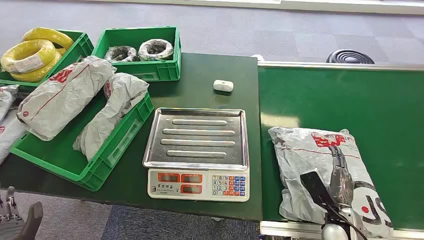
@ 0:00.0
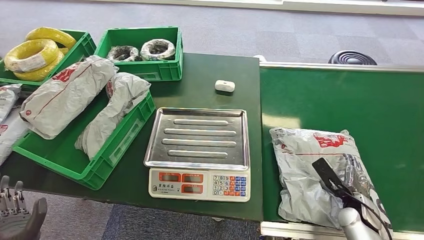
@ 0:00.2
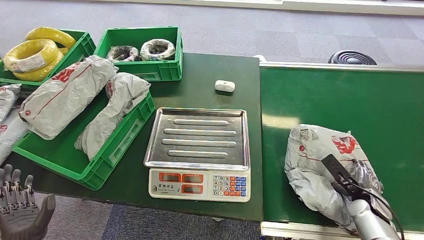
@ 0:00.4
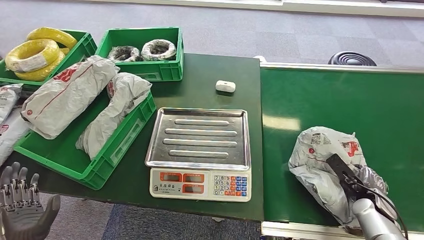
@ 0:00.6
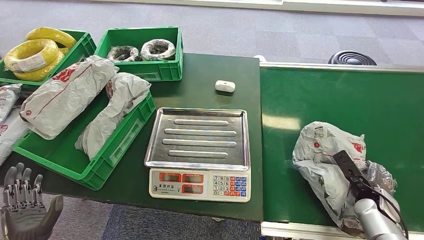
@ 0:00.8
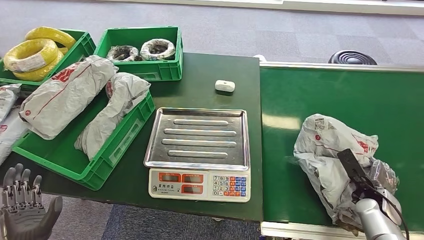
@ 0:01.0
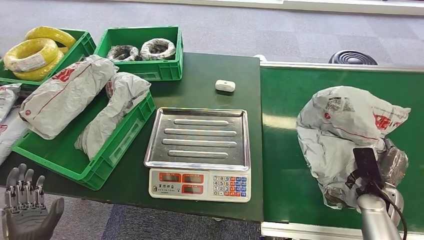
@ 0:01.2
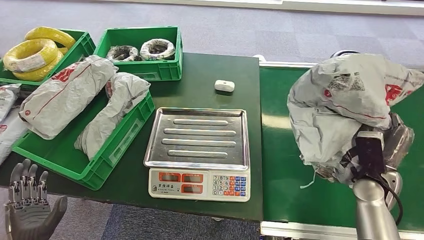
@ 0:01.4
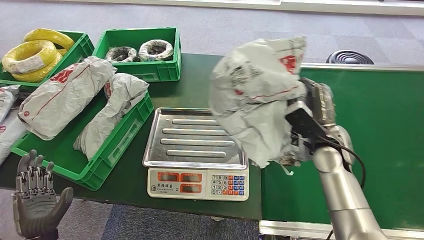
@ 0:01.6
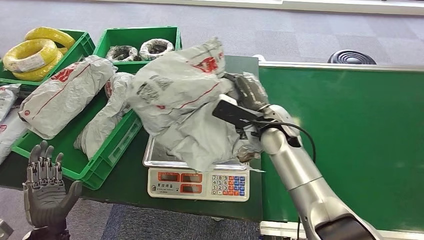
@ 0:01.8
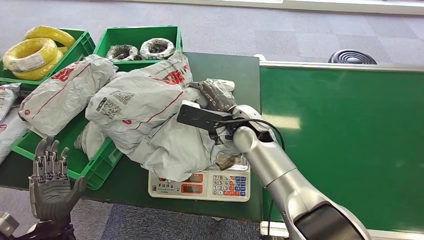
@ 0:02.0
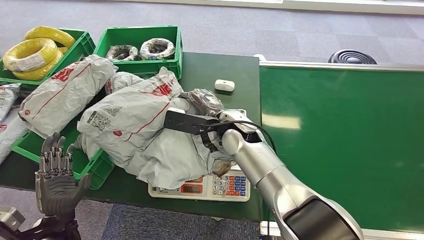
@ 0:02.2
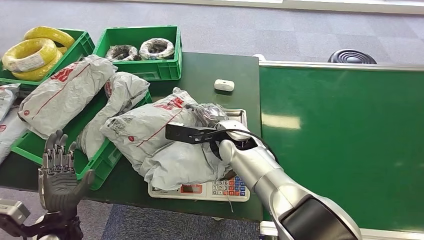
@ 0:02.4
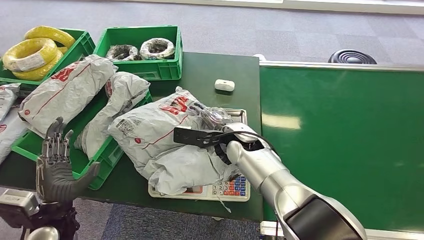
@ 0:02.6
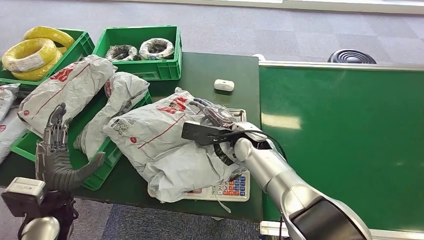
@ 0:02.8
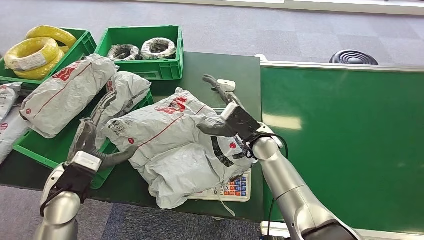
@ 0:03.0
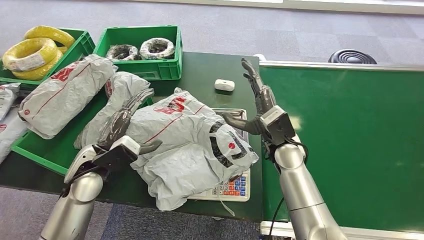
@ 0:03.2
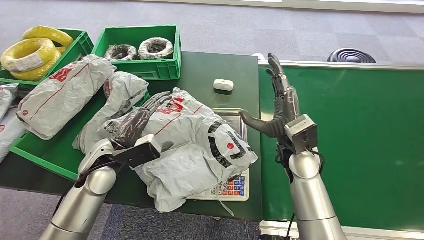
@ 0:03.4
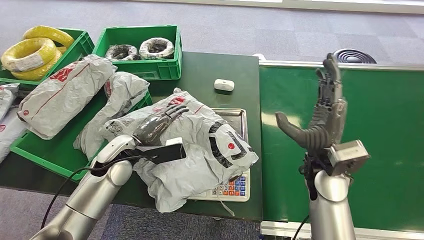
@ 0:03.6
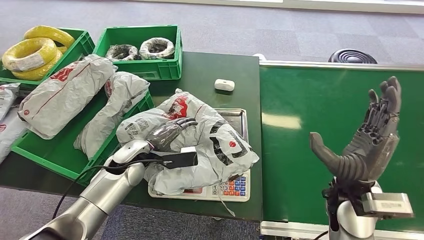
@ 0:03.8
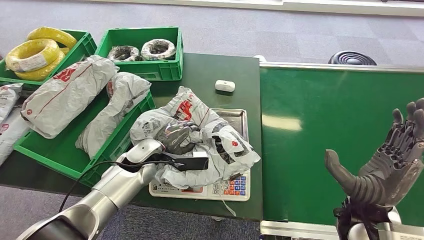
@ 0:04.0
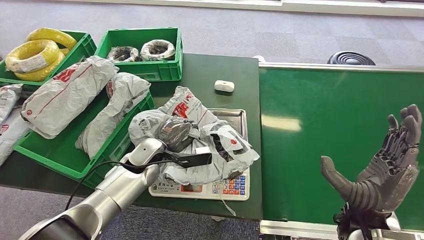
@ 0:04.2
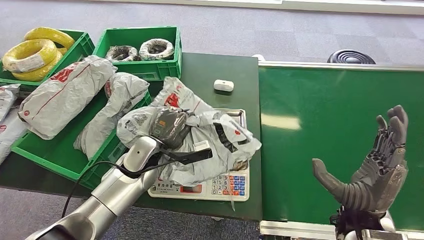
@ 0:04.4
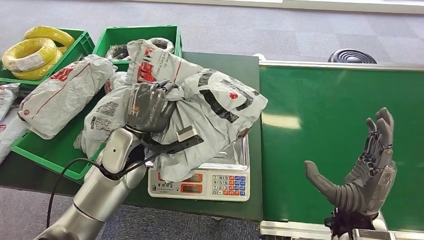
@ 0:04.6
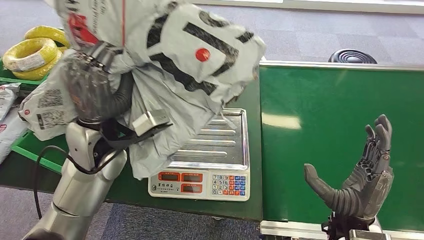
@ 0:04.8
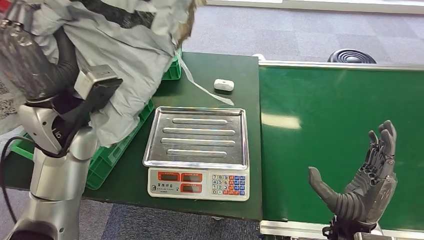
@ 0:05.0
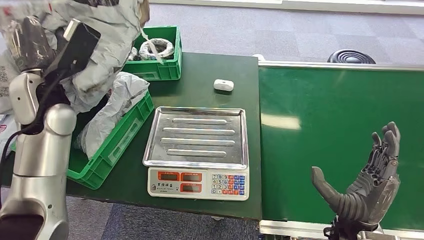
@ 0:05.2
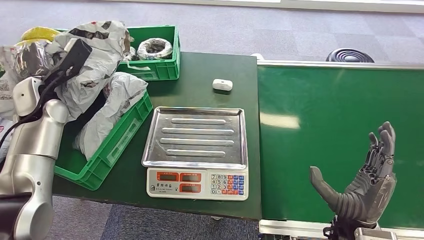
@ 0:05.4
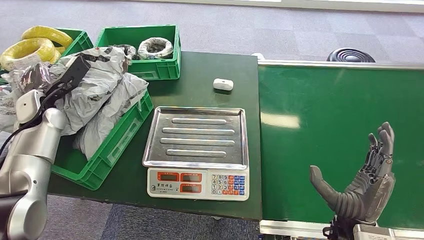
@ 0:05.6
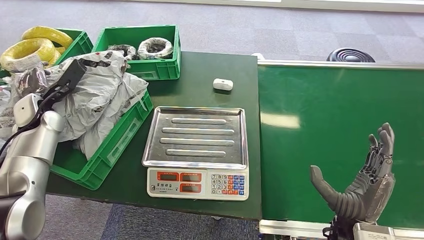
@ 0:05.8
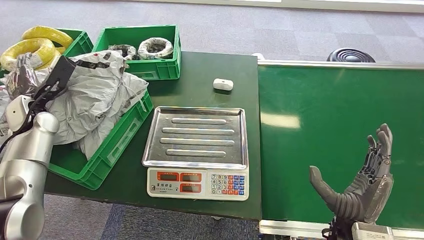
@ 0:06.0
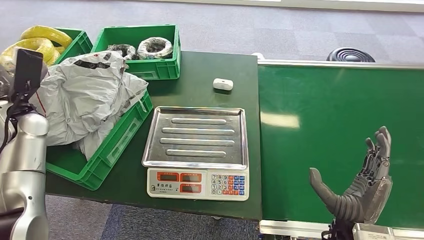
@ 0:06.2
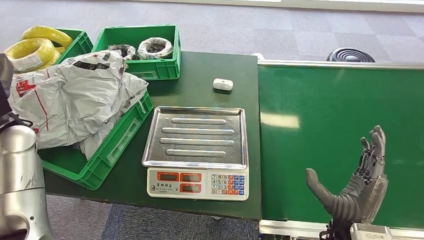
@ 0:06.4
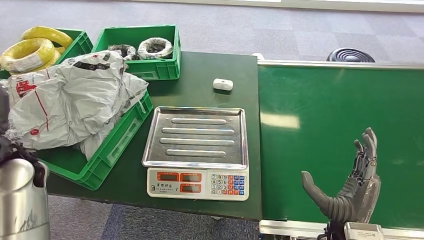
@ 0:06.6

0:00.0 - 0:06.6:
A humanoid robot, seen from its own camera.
Step, 0:00.0 - 0:01.4: Pick up the package from the conveyor belt.
Step, 0:01.8 - 0:03.2: Place the package onto the inbound machine.
Step, 0:03.6 - 0:05.0: Pick up the package from the inbound machine.
Step, 0:05.2 - 0:06.6: Place the package into the parcel locker.

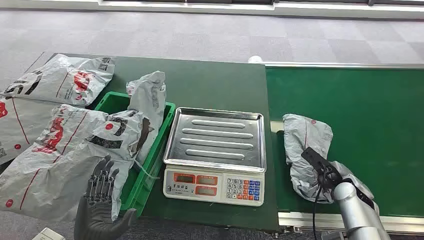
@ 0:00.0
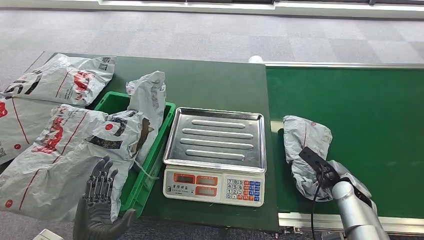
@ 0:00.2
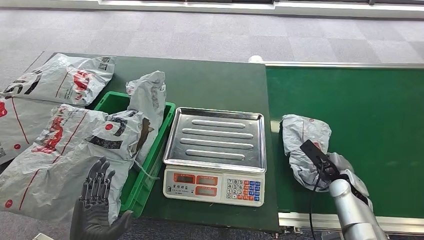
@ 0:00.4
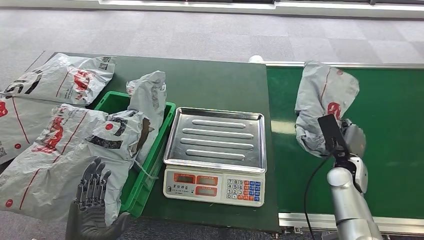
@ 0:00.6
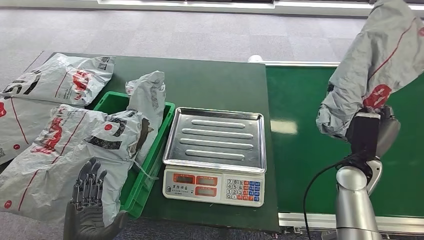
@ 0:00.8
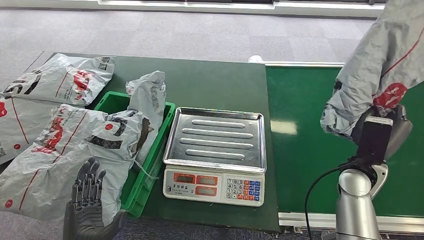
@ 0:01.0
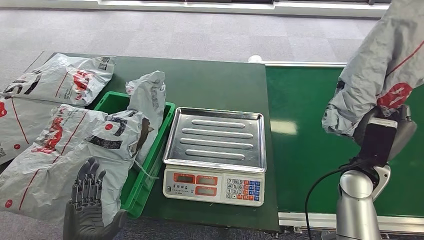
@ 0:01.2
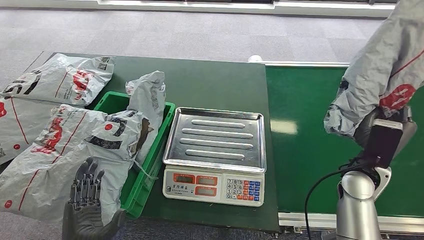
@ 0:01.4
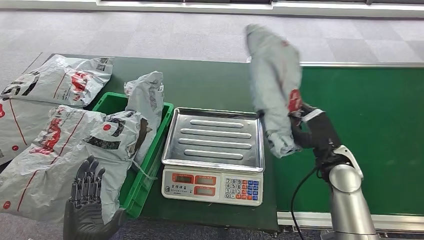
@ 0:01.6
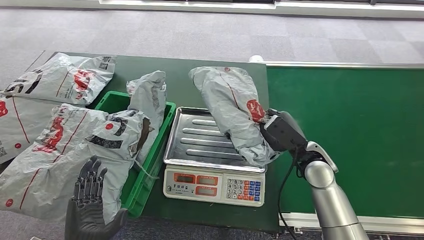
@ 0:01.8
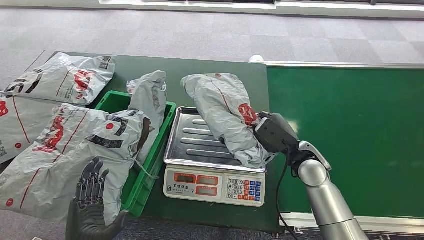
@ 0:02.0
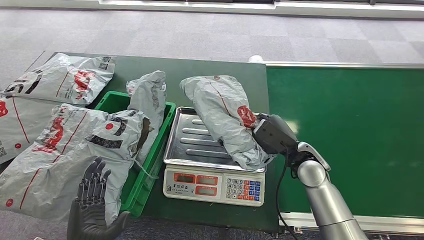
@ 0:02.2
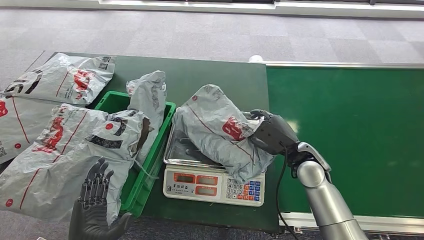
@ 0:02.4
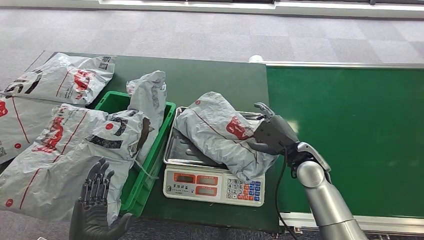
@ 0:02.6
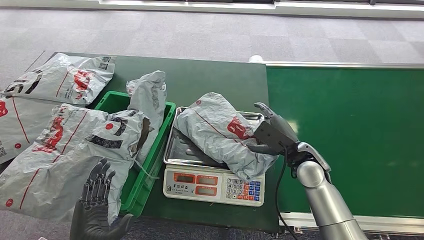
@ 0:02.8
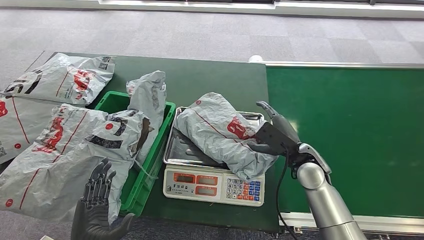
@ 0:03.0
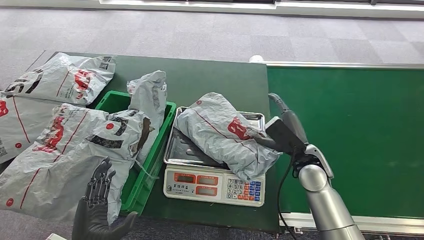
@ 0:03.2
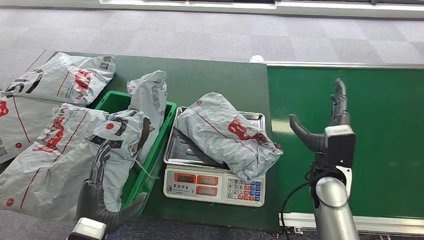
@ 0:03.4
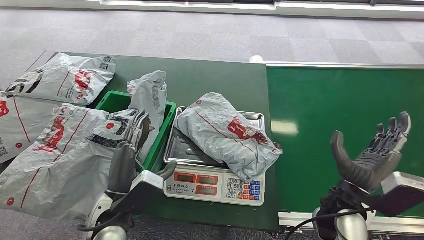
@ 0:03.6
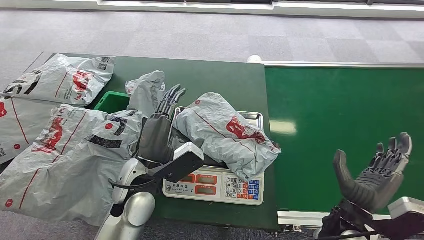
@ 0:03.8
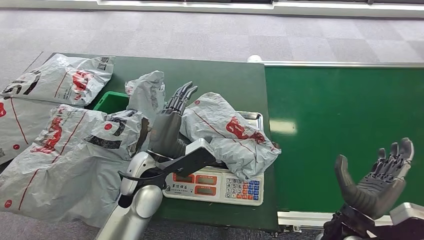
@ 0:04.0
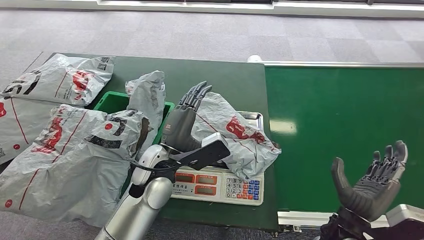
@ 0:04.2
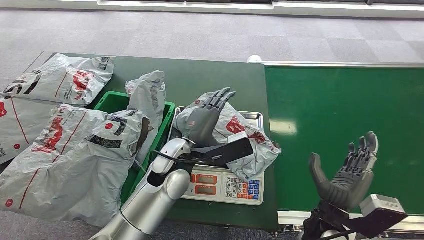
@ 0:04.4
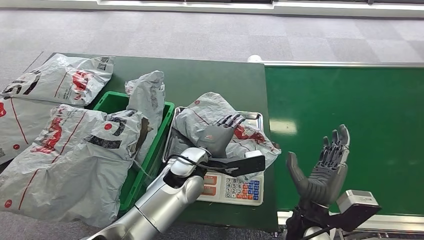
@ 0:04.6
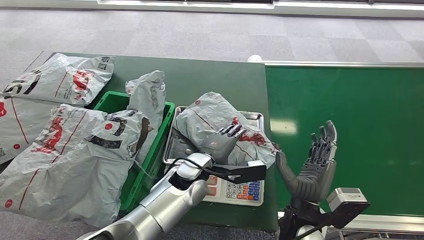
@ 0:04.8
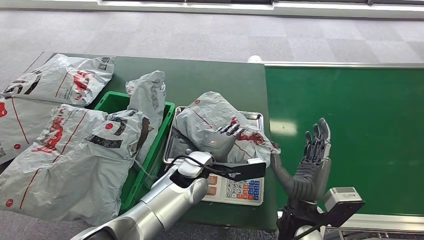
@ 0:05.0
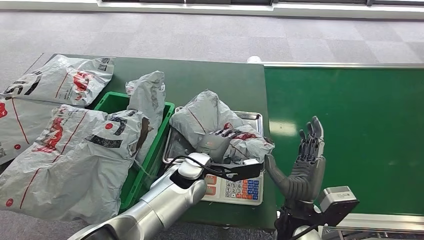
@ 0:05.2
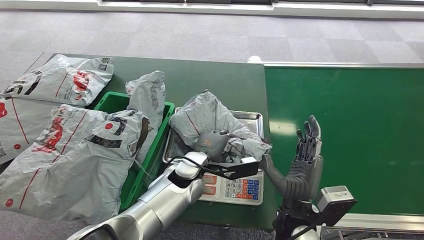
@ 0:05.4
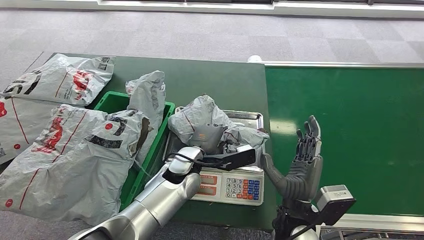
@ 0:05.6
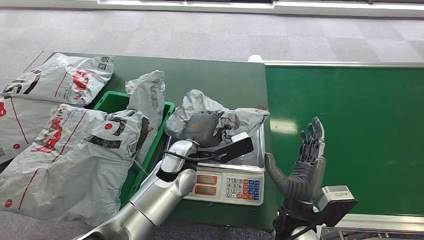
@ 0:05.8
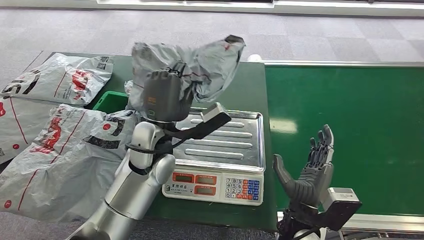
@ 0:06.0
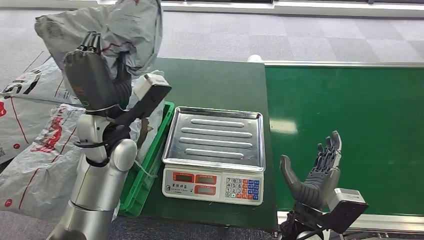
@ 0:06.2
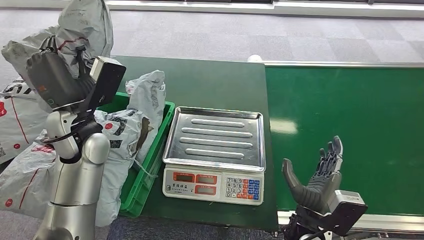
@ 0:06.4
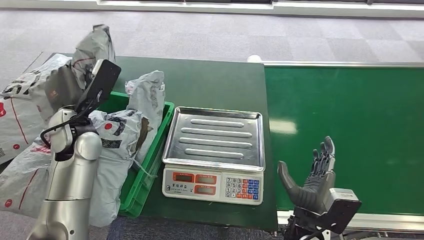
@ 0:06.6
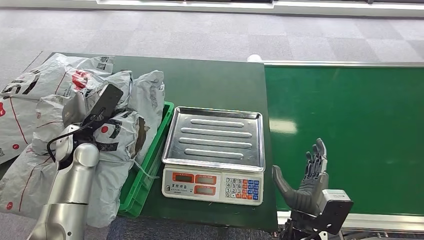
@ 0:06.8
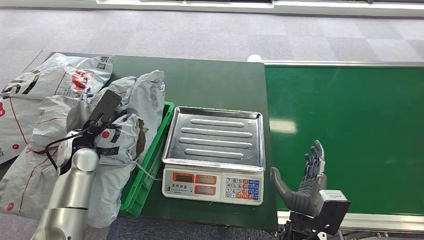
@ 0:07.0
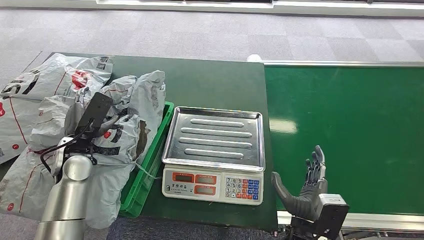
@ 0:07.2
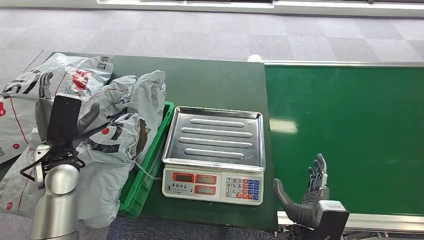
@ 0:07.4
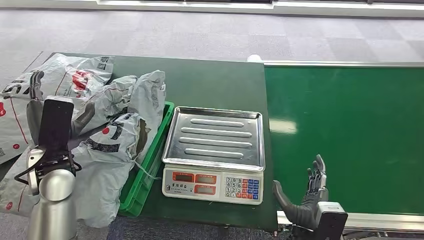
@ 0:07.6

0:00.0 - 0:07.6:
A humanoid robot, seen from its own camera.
Step, 0:00.0 - 0:00.6: Pick up the package from the conveyor belt.
Step, 0:01.0 - 0:03.0: Place the package onto the inbound machine.
Step, 0:04.4 - 0:06.0: Pick up the package from the inbound machine.
Step, 0:06.2 - 0:07.4: Place the package into the parcel locker.
